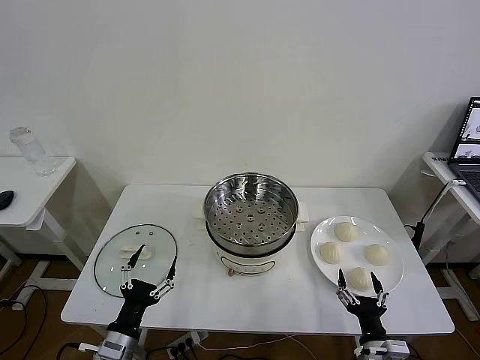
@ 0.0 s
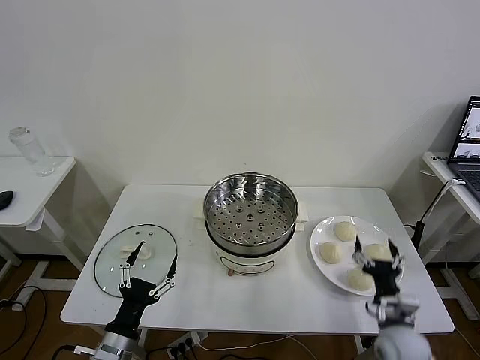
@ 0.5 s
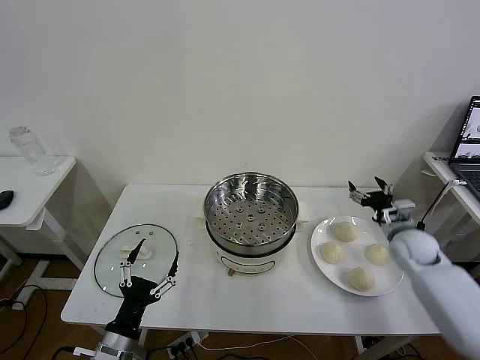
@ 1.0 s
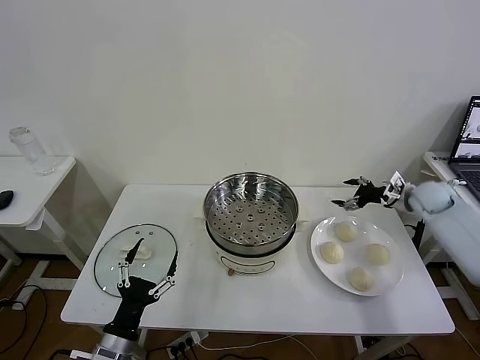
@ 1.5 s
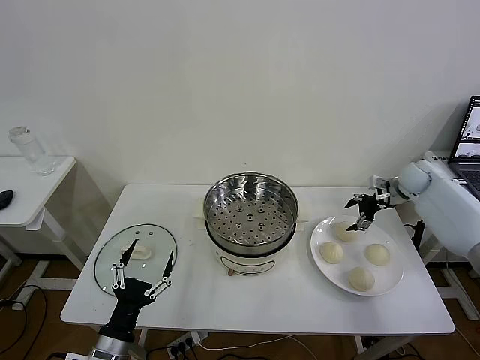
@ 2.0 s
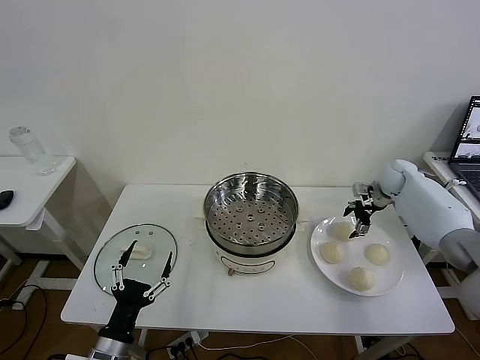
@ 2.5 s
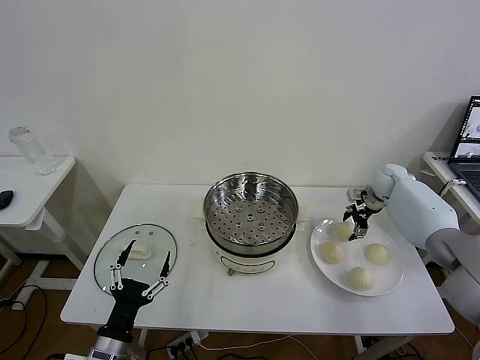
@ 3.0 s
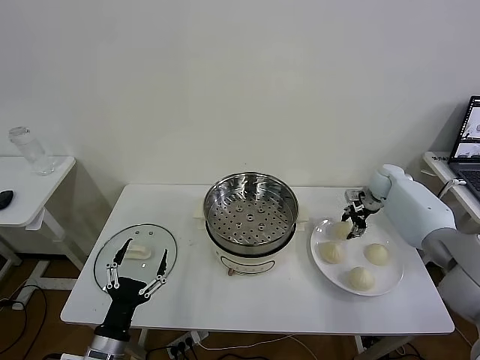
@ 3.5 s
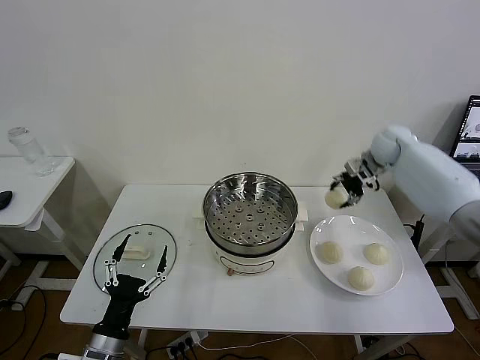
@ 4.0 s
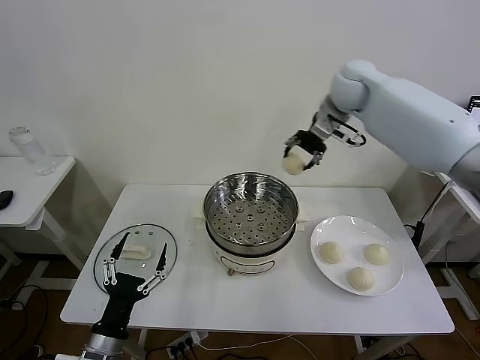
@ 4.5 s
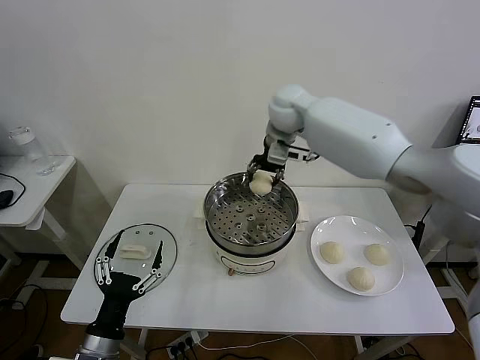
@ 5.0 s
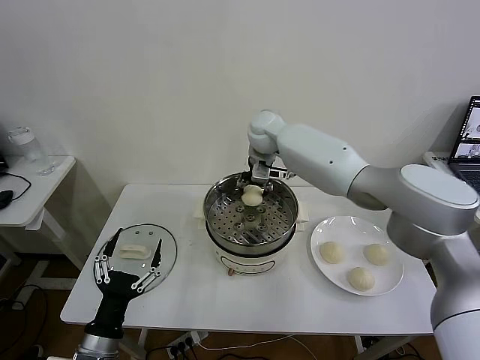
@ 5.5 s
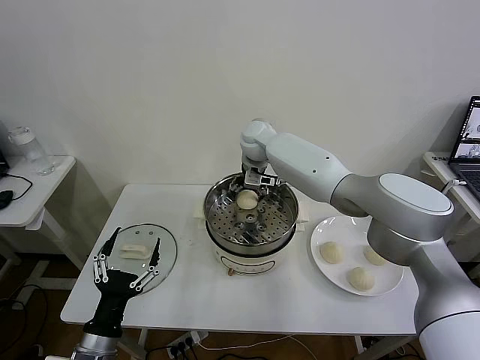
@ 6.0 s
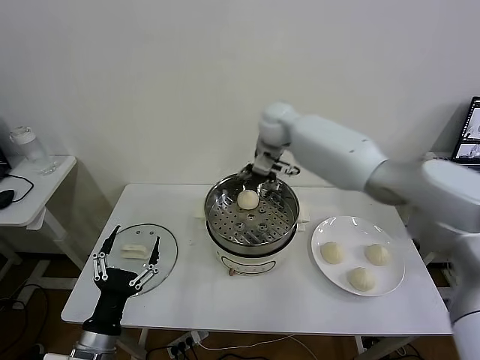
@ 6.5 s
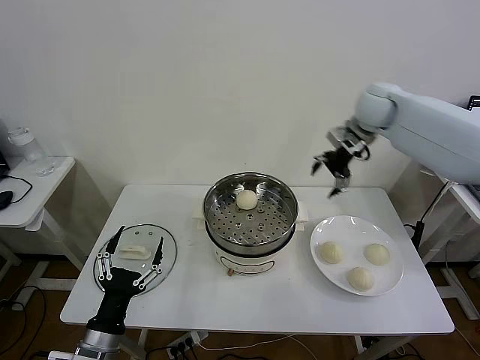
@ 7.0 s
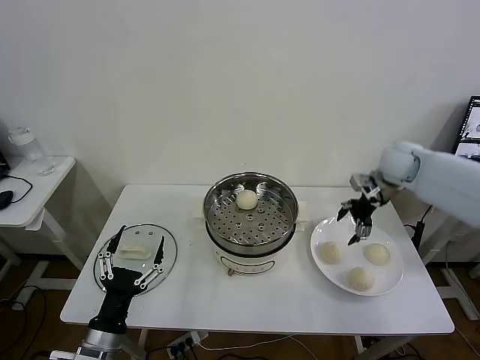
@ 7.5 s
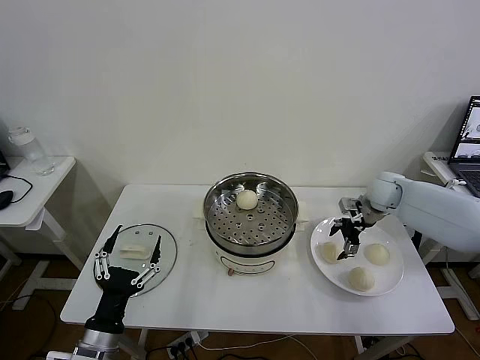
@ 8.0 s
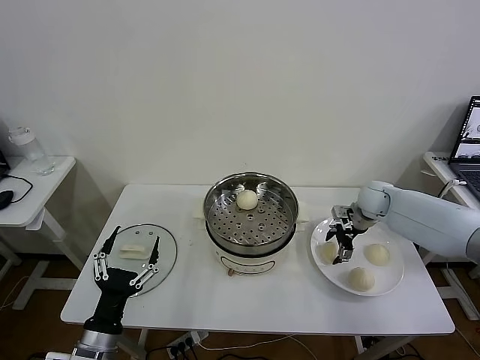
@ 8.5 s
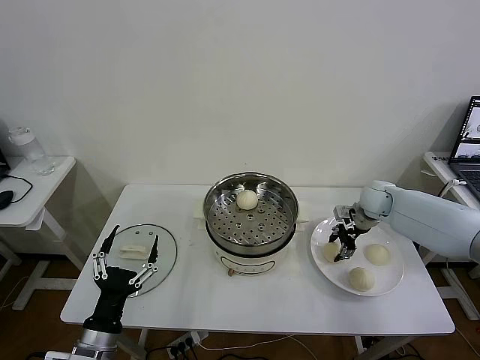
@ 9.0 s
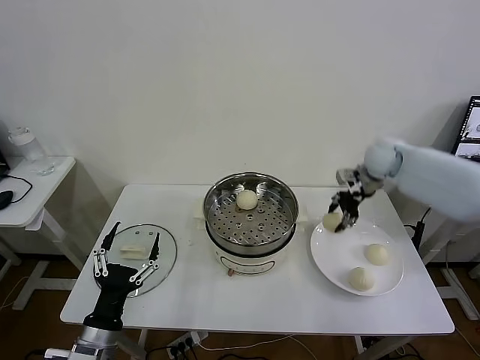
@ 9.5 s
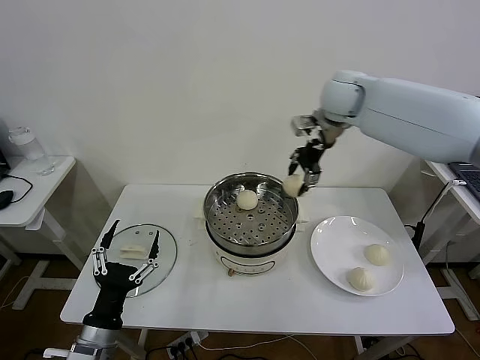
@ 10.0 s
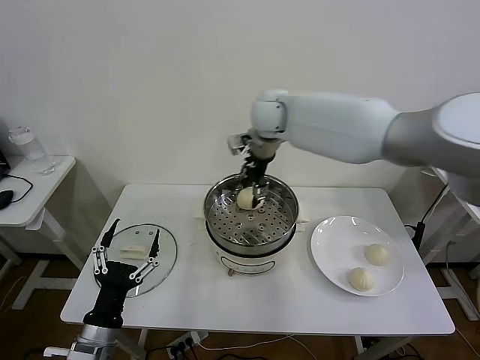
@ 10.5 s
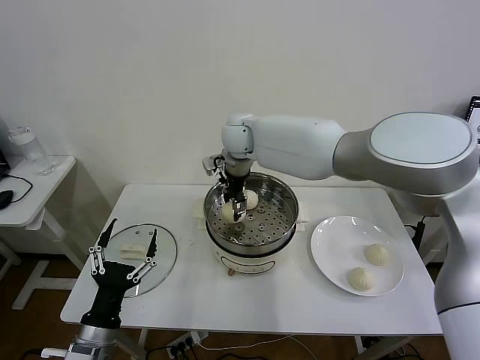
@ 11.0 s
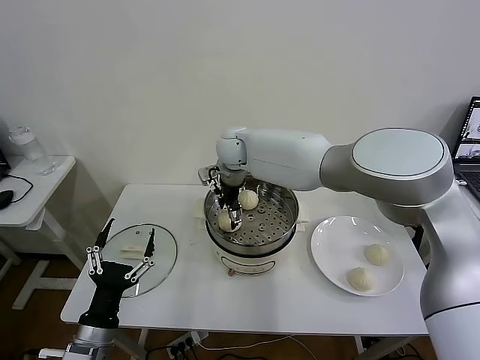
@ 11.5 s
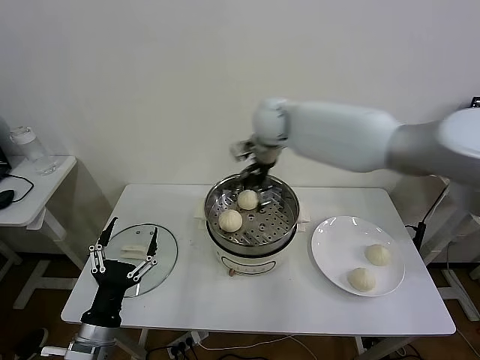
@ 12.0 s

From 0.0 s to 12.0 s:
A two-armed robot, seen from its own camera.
Task of the whole recording: take steamed baozi put them in steamer then cover it.
Step, from 0.0 s to 3.0 s: Grasp the baozi in the plate with right gripper.
Step, from 3.5 s to 6.0 s: Place the baozi on the steamer with right gripper.
Step, from 6.5 s to 9.0 s: Grasp the baozi in the plate with right gripper.
Step, from 9.5 s to 11.5 s: Place the baozi on the steamer with right gripper.
From 2.0 s to 4.0 s: The right gripper travels upward and to the left by about 15 cm, and closes its fingers.
From 4.0 s to 6.0 s: The right gripper travels to the left by some 30 cm, and opens.
From 6.0 s to 8.0 s: The right gripper is displaced to the right by roughly 30 cm.
From 8.0 s to 10.0 s: The right gripper goes approximately 30 cm upward and to the left, and closes its fingers.
From 10.0 s to 12.0 s: The right gripper heads to the left, covering approximately 10 cm, and opens.

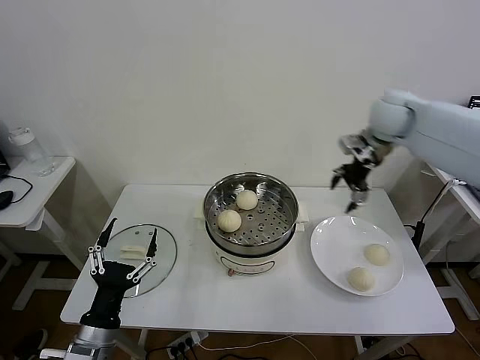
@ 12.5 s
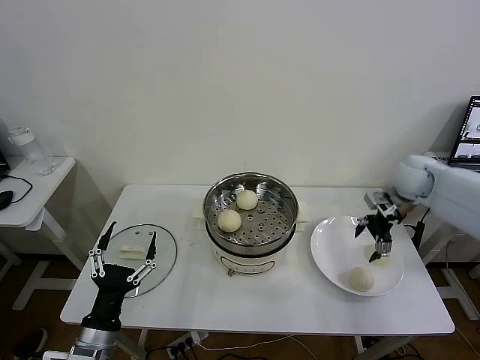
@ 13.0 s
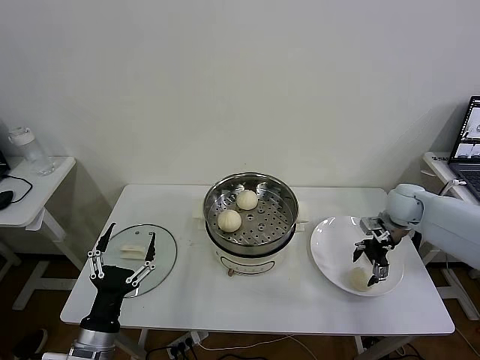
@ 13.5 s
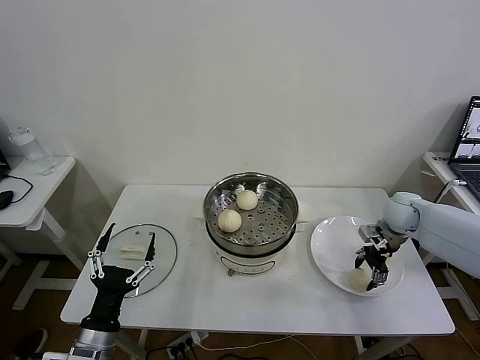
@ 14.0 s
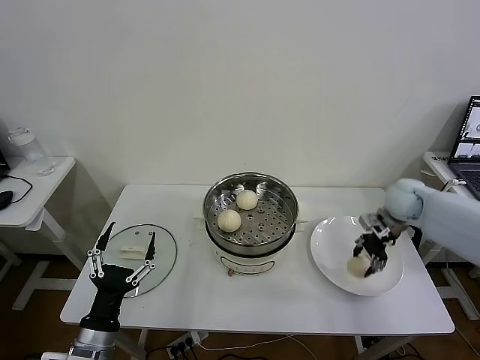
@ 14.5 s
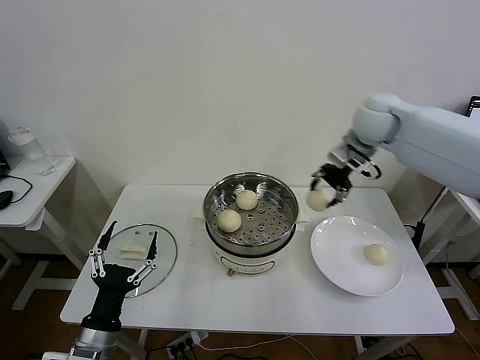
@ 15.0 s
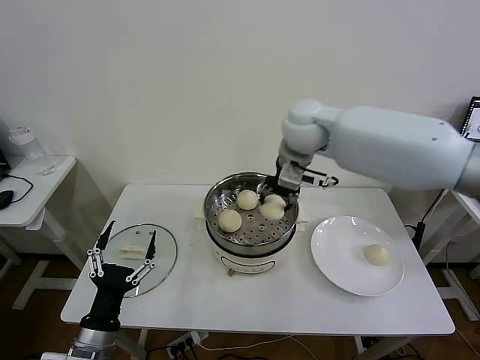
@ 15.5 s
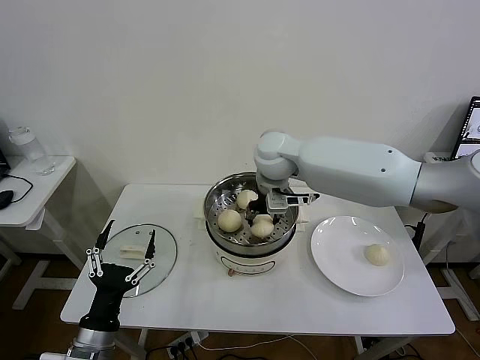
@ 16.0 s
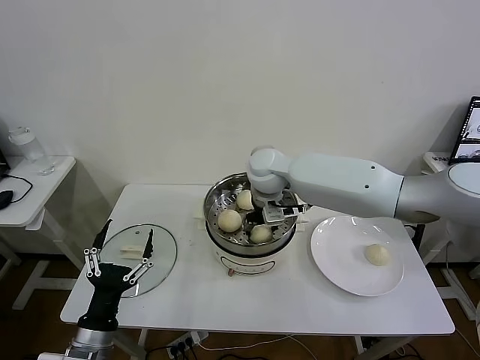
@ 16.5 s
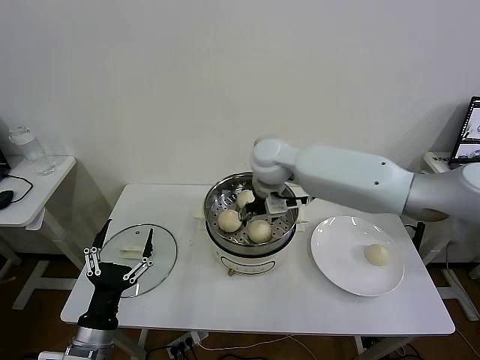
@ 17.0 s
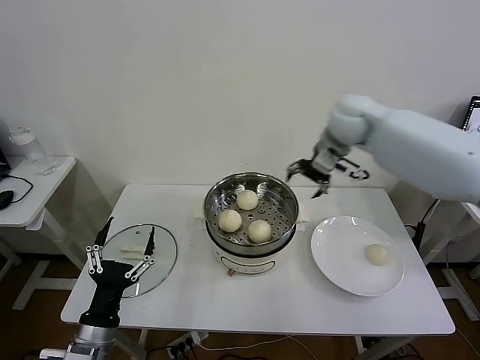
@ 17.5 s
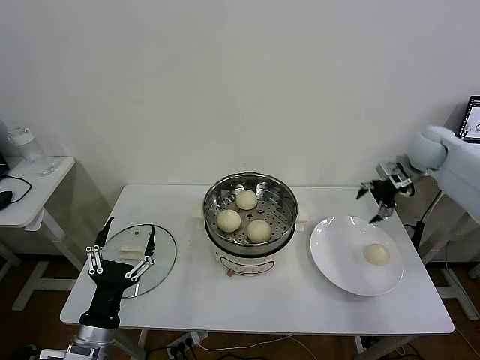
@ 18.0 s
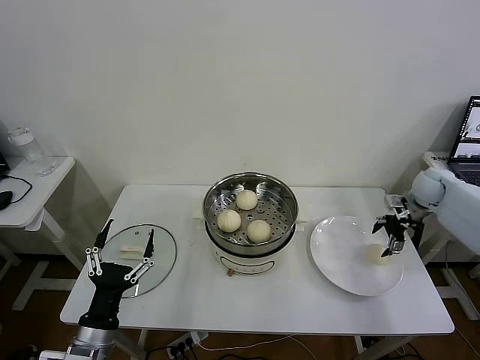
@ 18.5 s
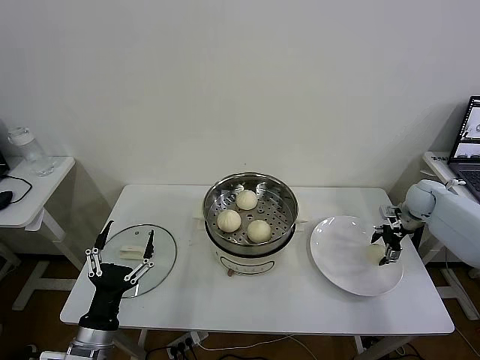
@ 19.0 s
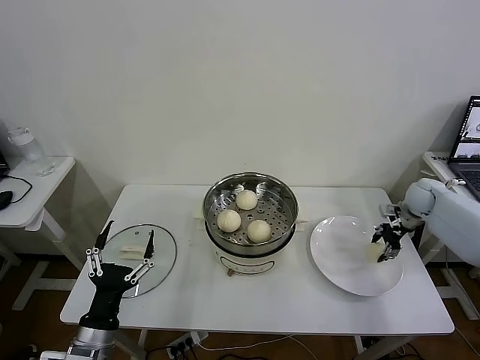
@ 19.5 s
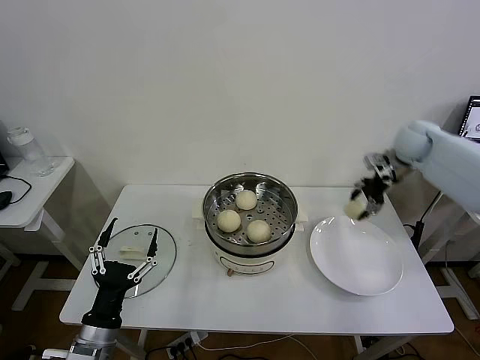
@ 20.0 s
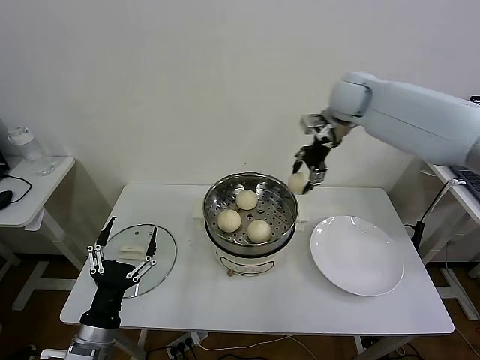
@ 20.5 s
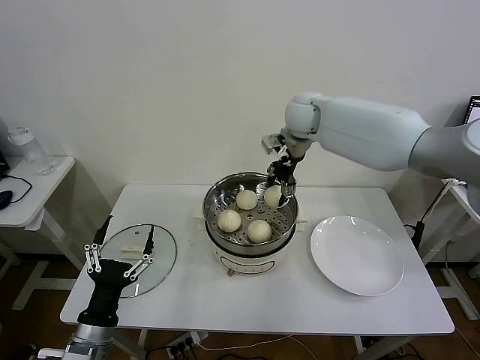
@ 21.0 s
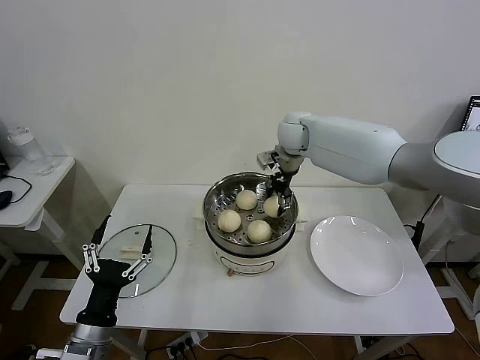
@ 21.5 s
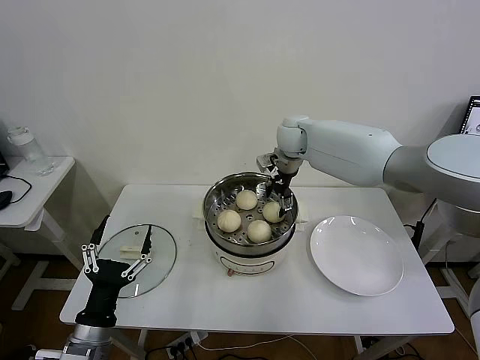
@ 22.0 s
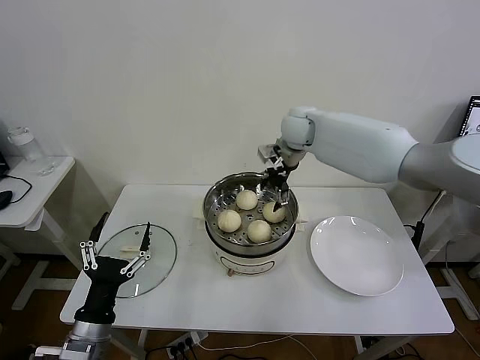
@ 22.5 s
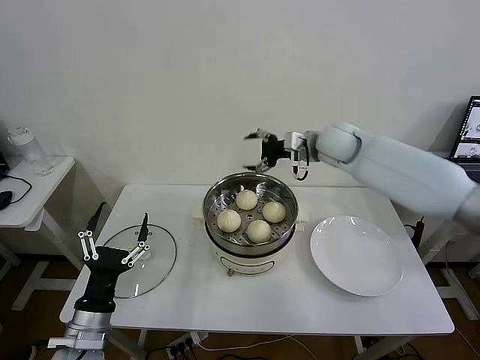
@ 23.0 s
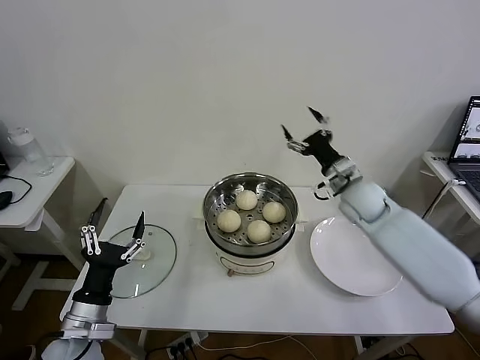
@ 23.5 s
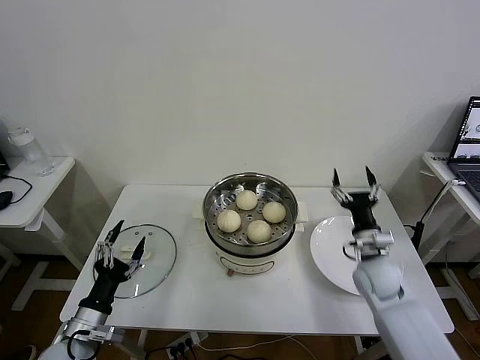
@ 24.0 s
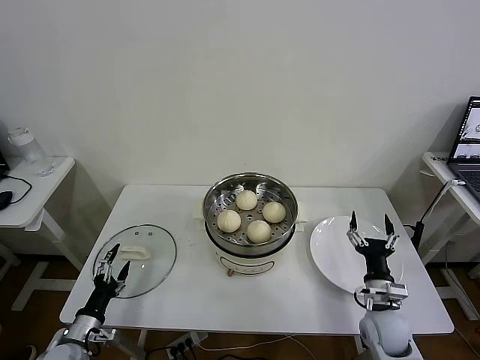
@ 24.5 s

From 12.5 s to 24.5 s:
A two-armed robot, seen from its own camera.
Task of the whole recording: take steamed baozi put them in steamer then cover it.
Step, from 12.5 s to 14.0 s: Grasp the baozi in the plate with right gripper.
Step, from 14.5 s to 16.5 s: Place the baozi on the steamer with right gripper.
Step, from 17.0 s to 19.0 s: Grasp the baozi in the plate with right gripper.
Step, from 19.5 s to 22.0 s: Place the baozi on the steamer with right gripper.
From 12.5 s to 14.5 s: The right gripper goes some 15 cm downward, and closes its fingers.
From 14.5 s to 16.5 s: The right gripper shifts roughly 35 cm to the left, and opens up.
From 16.5 s to 18.5 s: The right gripper moves to the right, about 40 cm, and opens.
From 18.5 s to 20.5 s: The right gripper is displaced to the left and upward by some 35 cm, and closes.
From 20.5 s to 22.5 s: The right gripper travels to the left and downward by some 10 cm, and opens.
From 22.5 s to 24.5 s: The right gripper heads backward, downward and to the right, covering some 50 cm; the left gripper is displaced downward and to the left by approximately 15 cm.

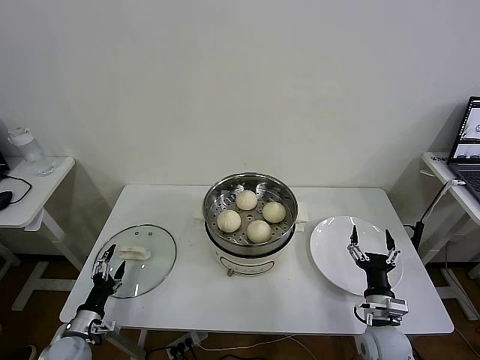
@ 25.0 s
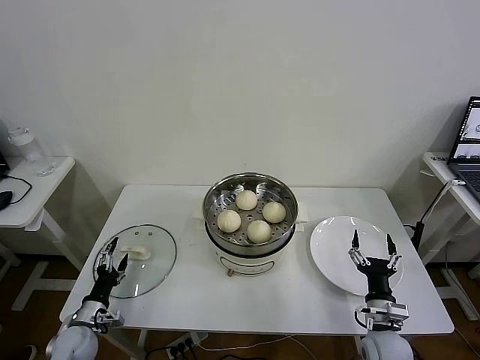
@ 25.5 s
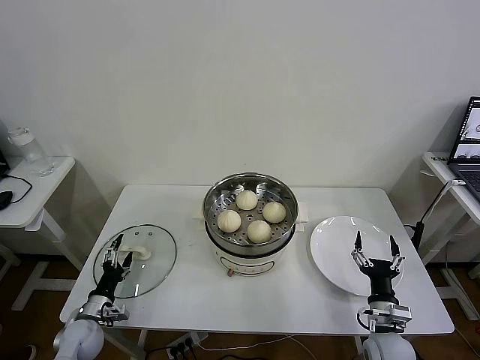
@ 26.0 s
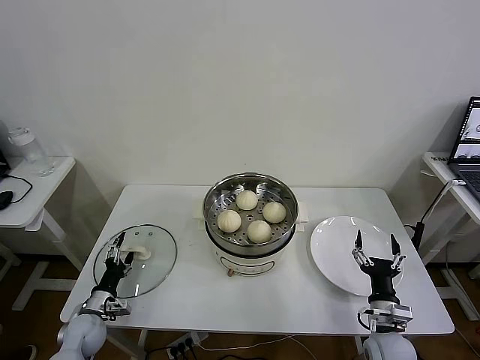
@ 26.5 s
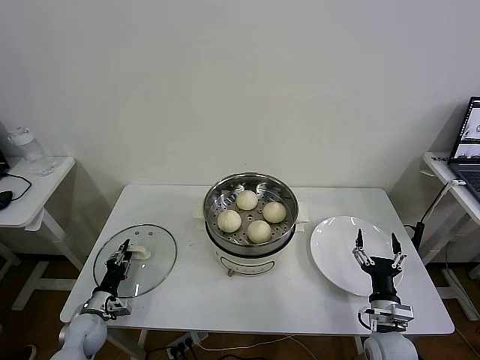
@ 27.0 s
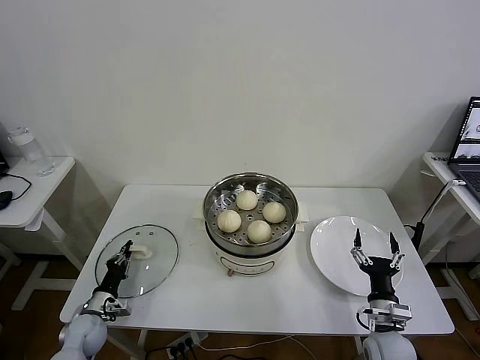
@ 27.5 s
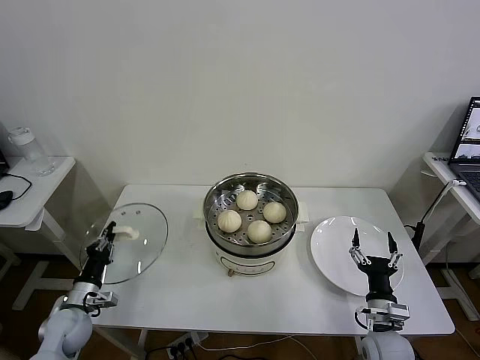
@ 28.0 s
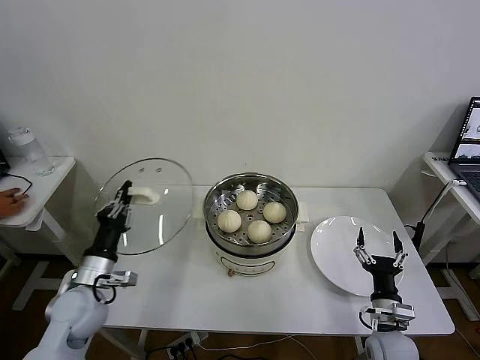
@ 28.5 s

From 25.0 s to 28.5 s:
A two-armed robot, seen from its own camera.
Task of the whole recording: take steamed baozi put them in steamer then cover it.
Step, from 25.0 s to 27.0 s: Grasp the pot lid with left gripper.
From 25.0 s to 27.0 s: The left gripper is displaced forward by approximately 5 cm, and closes.
From 27.0 s to 28.5 s: The left gripper heads upward, covering approximately 20 cm, and closes its fingers.
